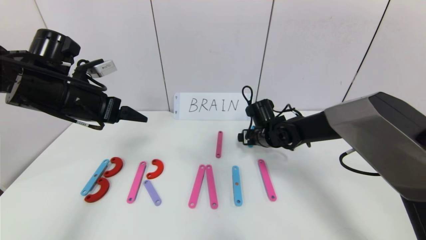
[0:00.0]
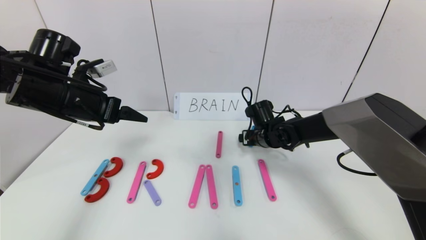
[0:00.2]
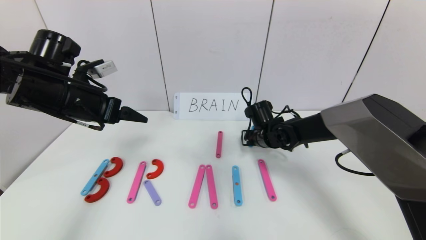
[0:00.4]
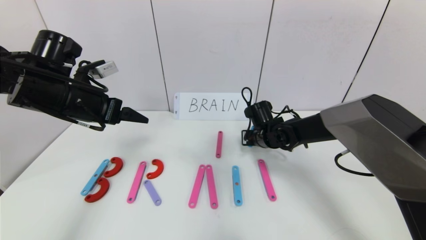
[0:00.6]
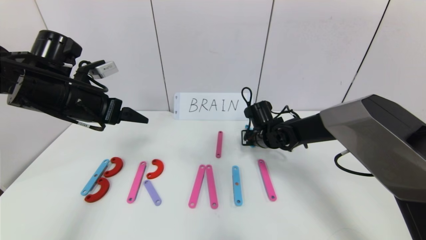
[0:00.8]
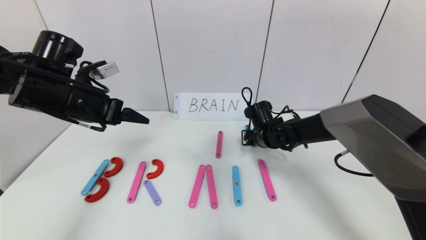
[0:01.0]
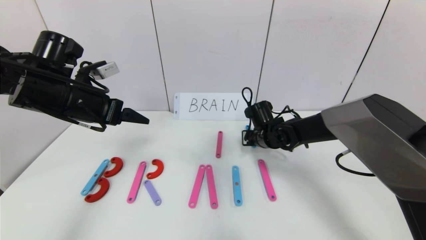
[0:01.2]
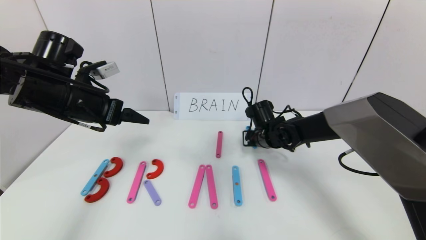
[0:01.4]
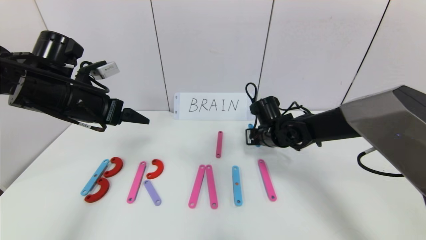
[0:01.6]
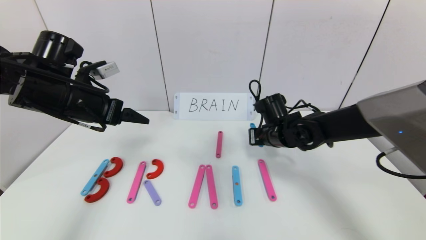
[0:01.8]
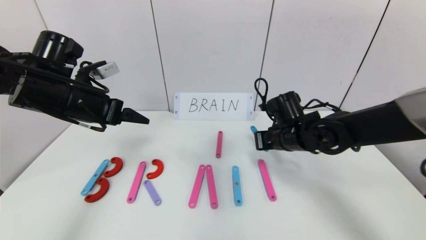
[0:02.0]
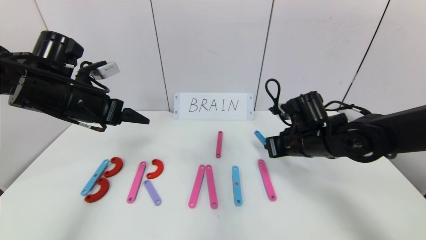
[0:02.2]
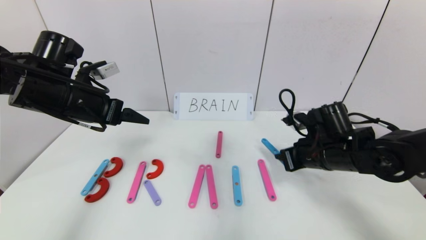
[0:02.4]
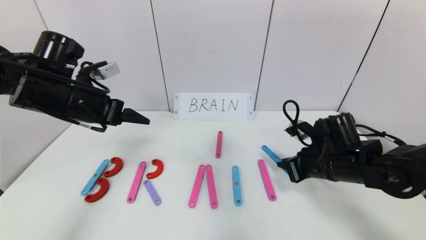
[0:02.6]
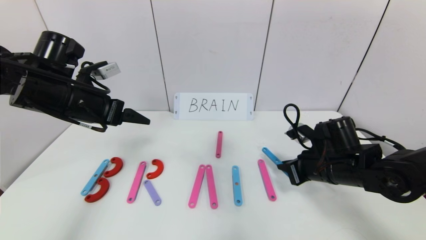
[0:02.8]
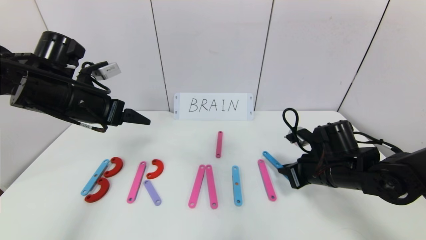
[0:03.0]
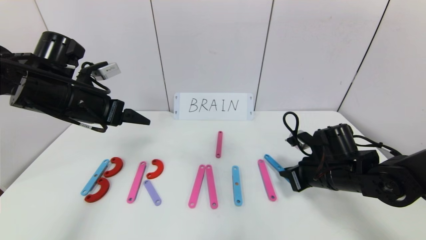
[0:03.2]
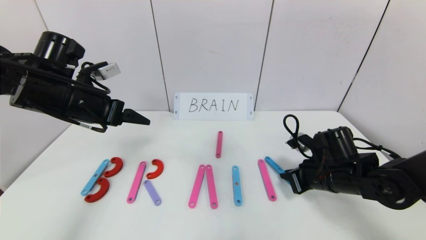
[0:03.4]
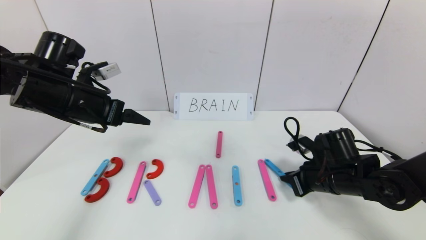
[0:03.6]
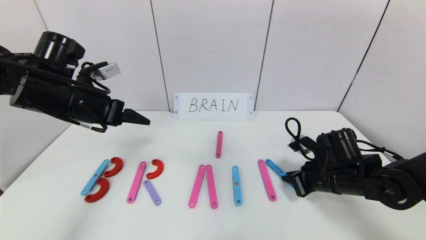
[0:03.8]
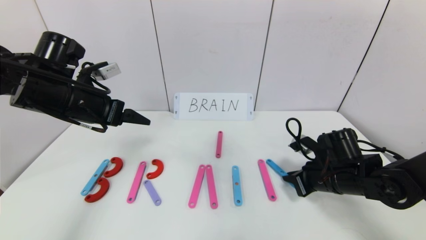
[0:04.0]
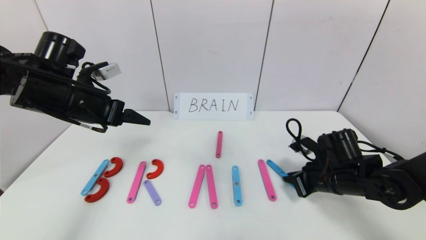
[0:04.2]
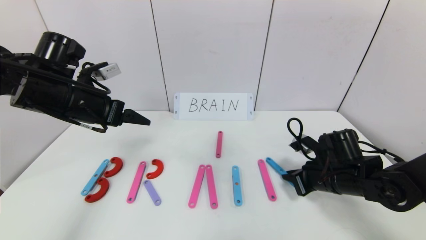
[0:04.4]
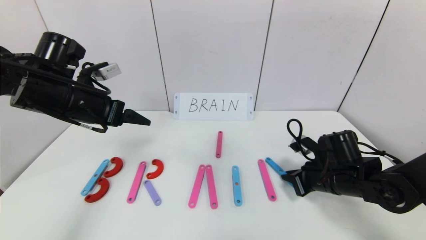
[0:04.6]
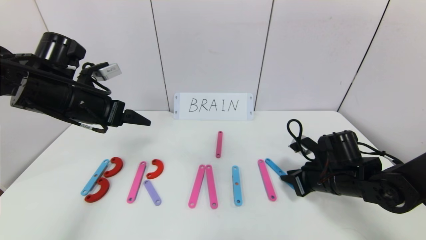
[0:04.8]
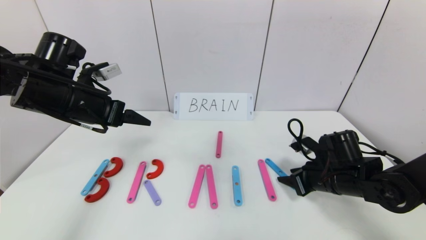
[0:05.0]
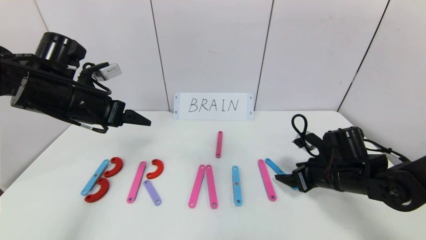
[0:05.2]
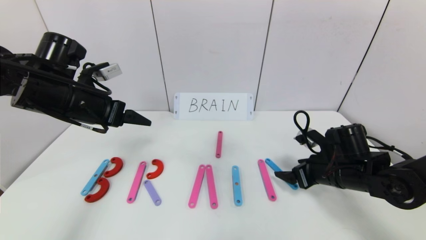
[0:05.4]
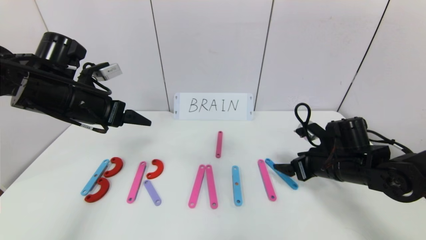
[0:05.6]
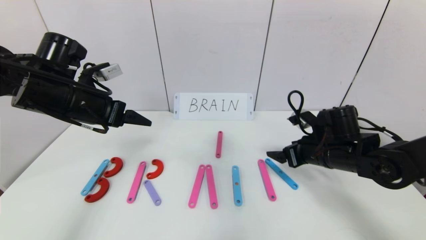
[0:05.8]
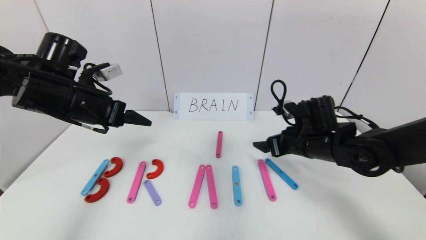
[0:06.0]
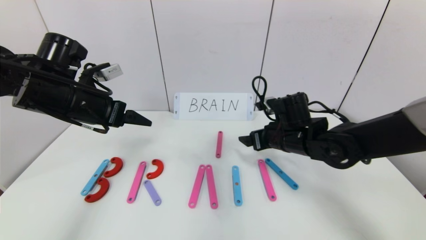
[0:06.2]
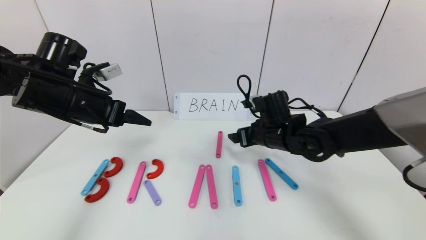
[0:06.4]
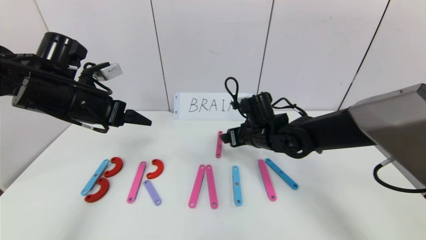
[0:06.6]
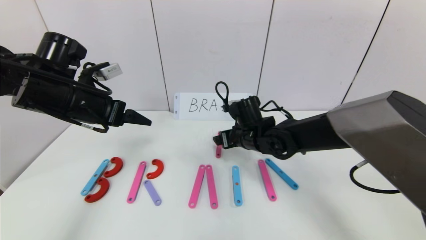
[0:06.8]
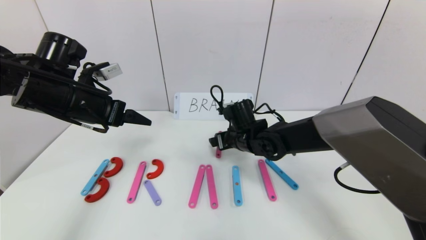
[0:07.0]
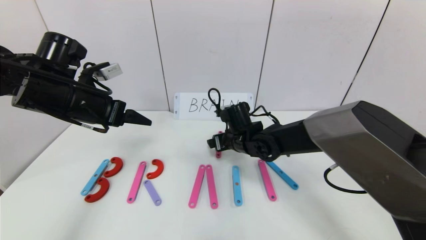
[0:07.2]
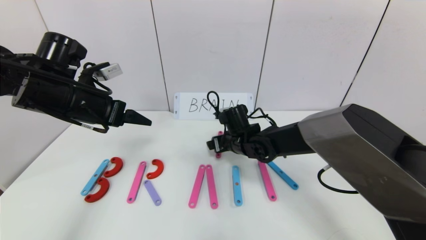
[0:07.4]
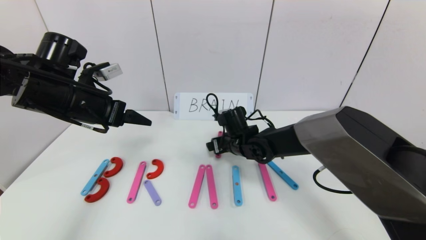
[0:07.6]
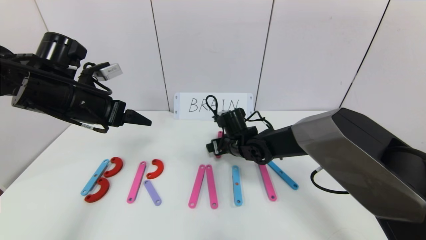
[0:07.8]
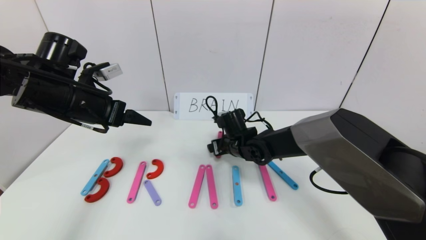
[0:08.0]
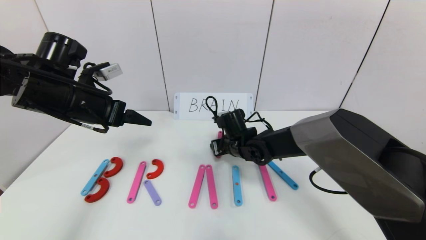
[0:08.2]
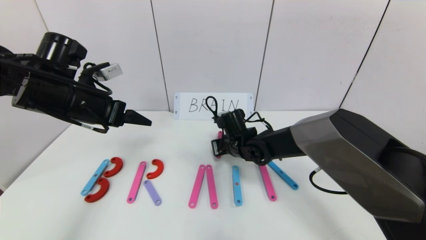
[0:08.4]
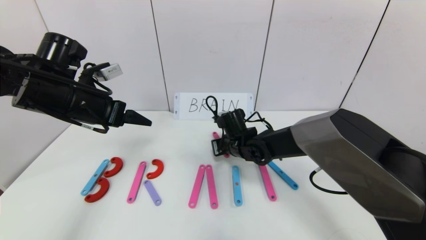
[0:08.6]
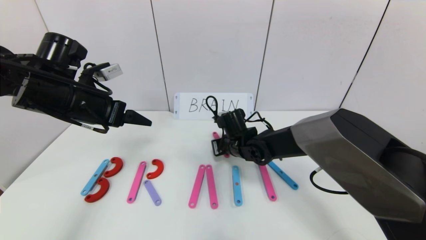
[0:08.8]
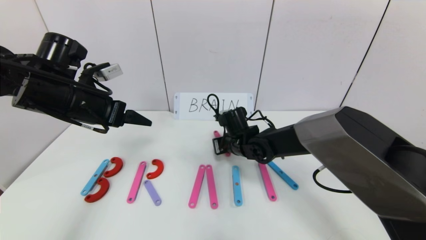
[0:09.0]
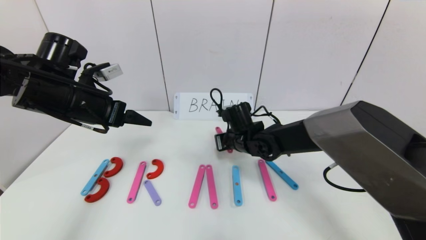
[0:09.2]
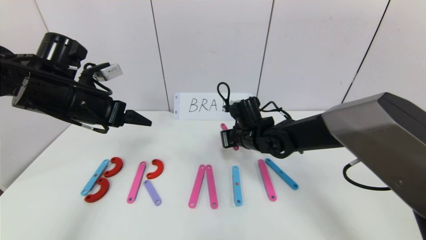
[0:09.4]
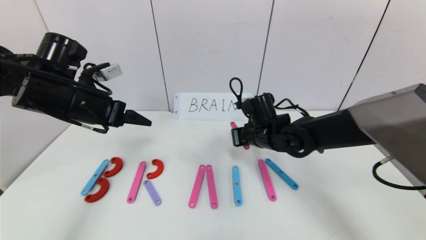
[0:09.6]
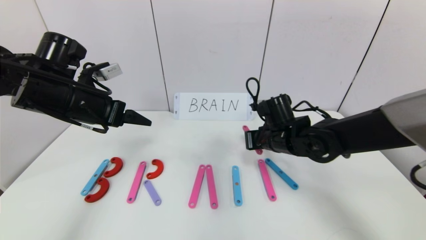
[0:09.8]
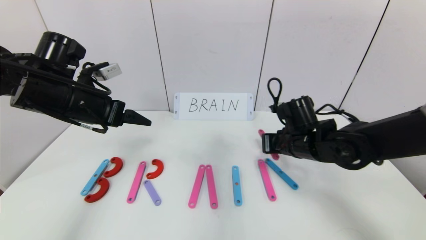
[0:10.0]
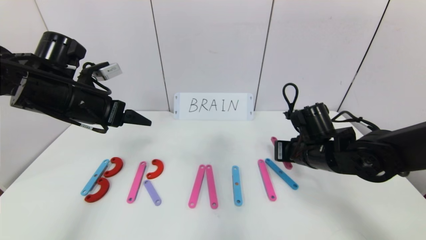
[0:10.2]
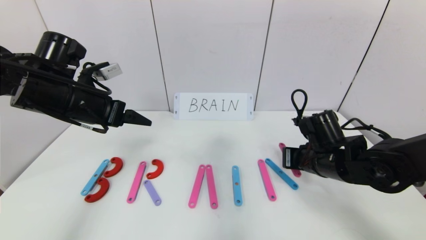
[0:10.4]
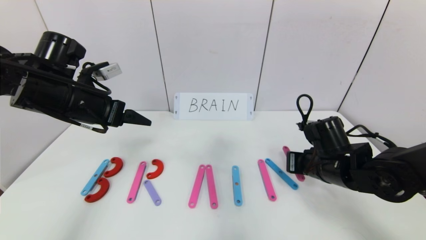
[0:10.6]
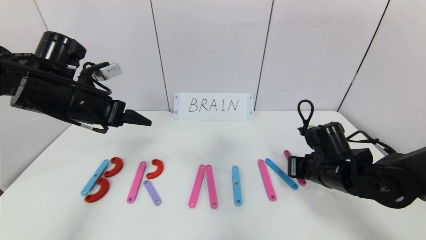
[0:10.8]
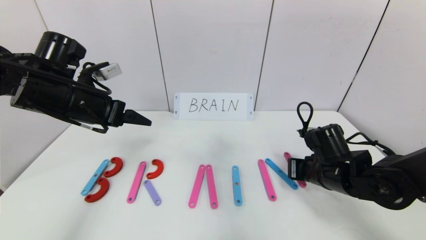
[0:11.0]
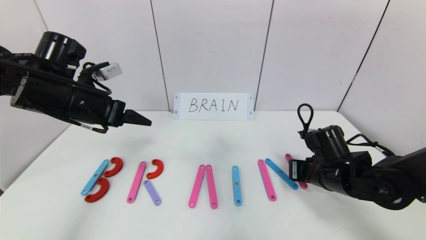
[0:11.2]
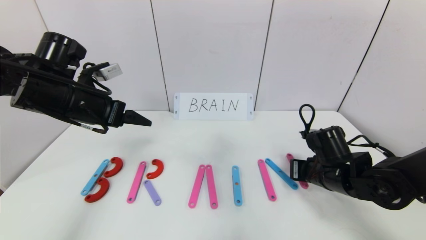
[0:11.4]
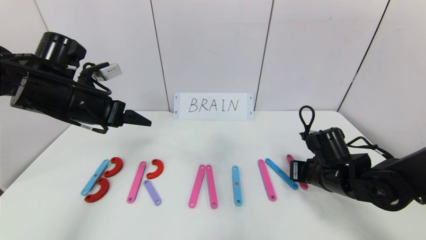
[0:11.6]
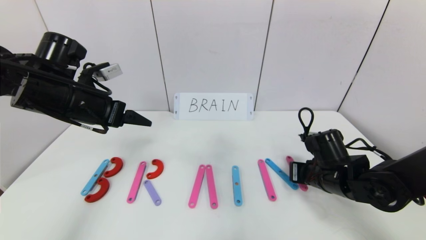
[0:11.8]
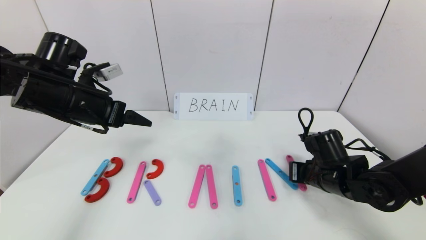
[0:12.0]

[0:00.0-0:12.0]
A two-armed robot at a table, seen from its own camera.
Task of the whole recording: rearrange the word baai as brain.
0:00.0 to 0:01.6: The right gripper closes its fingers.
0:01.6 to 0:03.0: The right gripper heads backward and to the right, covering roughly 15 cm.
0:03.0 to 0:04.4: The grippers make only small movements.
0:04.4 to 0:06.0: The right gripper shifts some 10 cm to the left and upward, and opens up.
0:06.0 to 0:07.6: The right gripper heads to the left, forward and downward, covering about 15 cm.
0:07.6 to 0:09.0: The right gripper closes up.
0:09.0 to 0:10.4: The right gripper goes some 20 cm to the right and backward.
0:10.4 to 0:12.0: There are only small adjustments of the grippers.

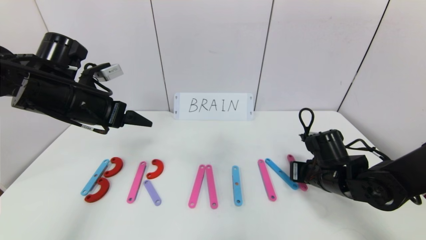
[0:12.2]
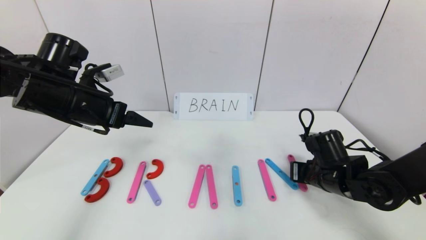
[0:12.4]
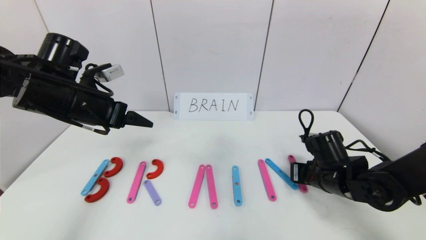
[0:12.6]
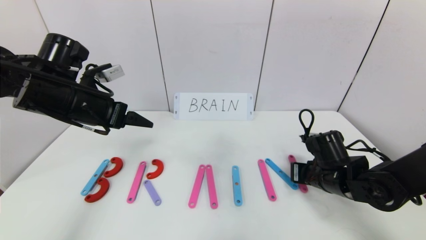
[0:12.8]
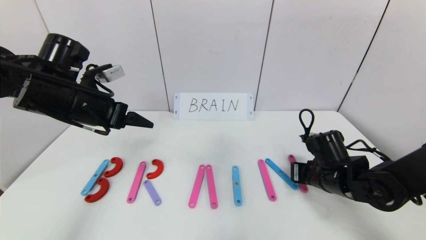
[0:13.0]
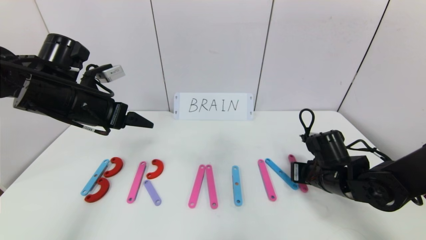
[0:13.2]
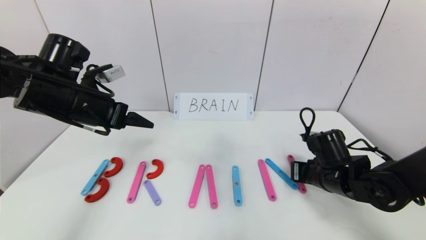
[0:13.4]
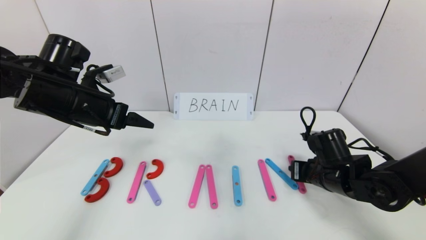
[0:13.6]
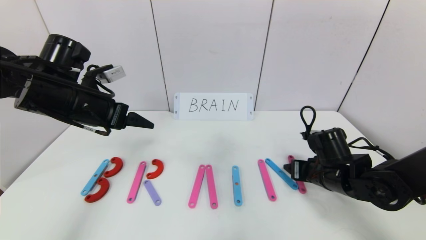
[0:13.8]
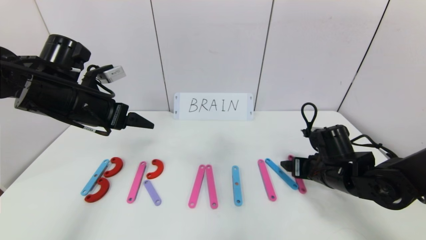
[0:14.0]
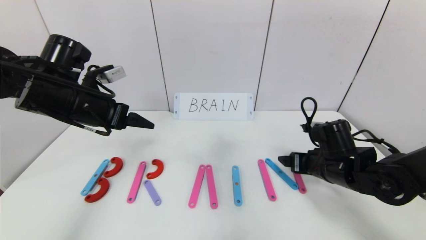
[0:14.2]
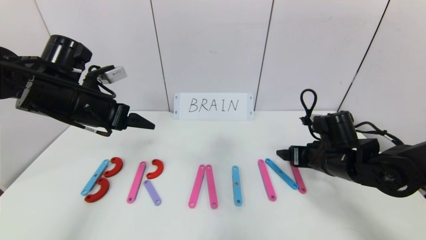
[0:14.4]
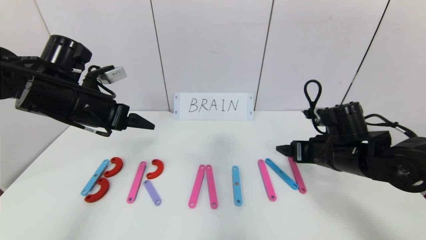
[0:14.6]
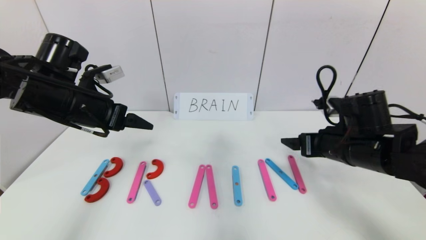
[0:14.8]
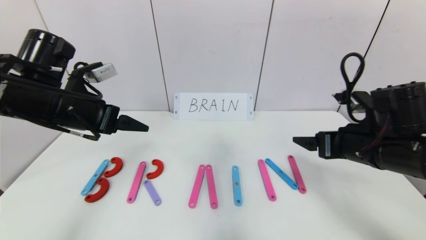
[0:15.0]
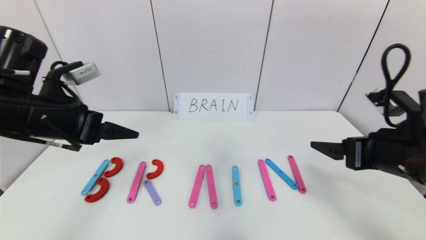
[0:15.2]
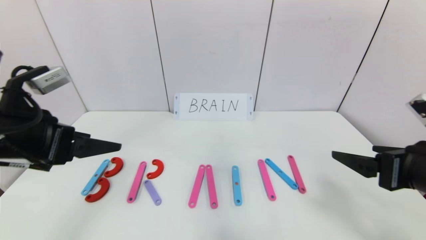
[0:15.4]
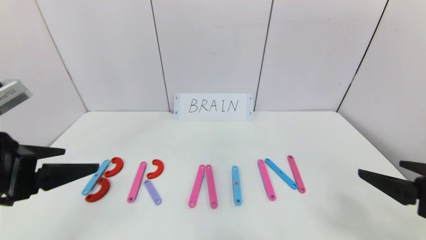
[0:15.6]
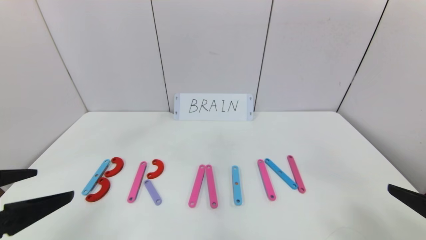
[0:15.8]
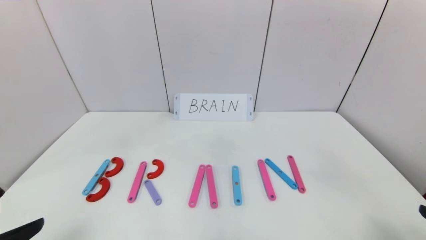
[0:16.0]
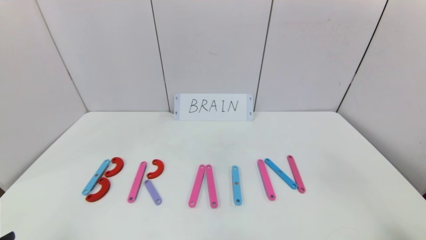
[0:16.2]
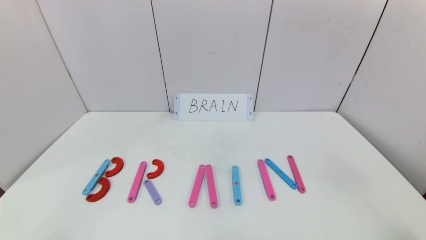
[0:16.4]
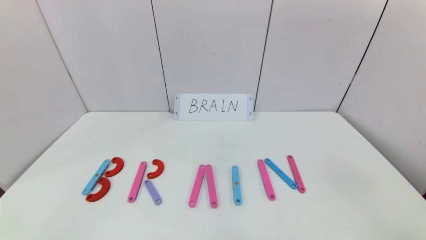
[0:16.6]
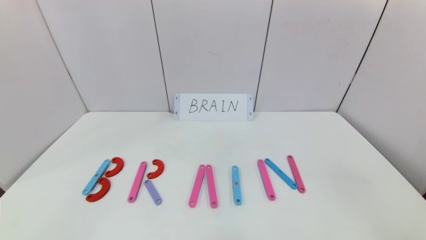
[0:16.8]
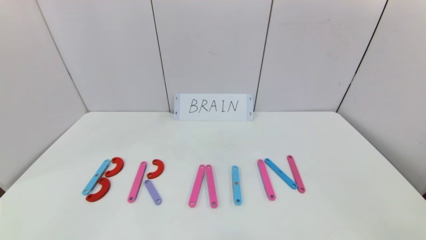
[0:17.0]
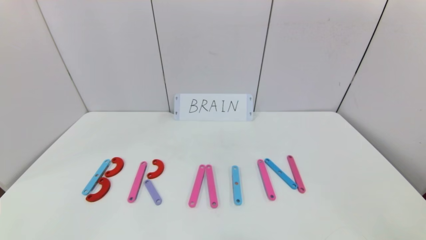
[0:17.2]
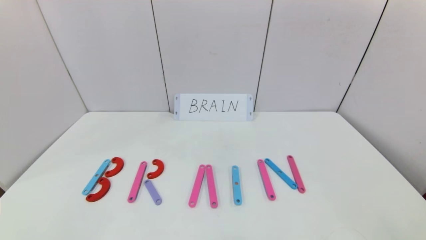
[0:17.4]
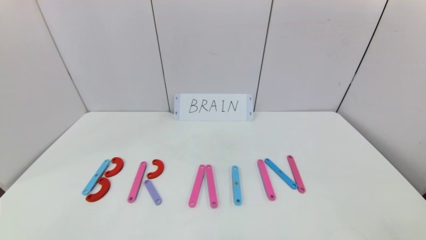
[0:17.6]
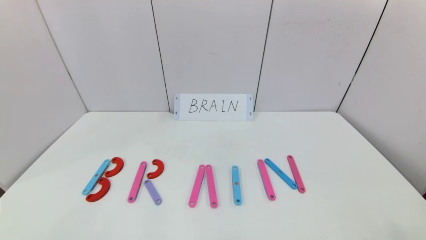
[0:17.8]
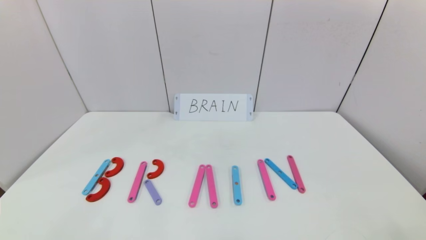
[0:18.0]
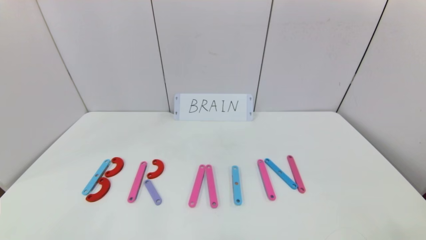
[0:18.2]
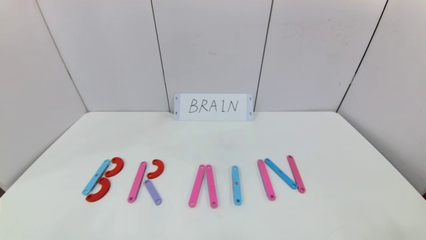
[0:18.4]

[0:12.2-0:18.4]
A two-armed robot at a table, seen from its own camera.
Task of the whole recording: rearrange the word baai as brain.
0:12.2 to 0:13.8: The right gripper opens.
0:13.8 to 0:15.4: The right gripper moves upward and backward, about 20 cm; the left gripper travels backward by roughly 10 cm.
0:15.4 to 0:16.8: Both grippers move backward, roughly 20 cm.
